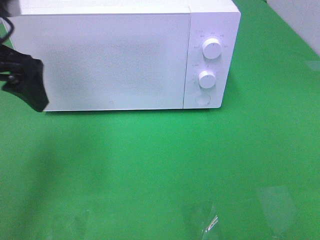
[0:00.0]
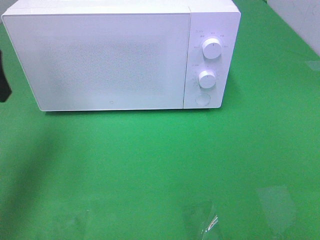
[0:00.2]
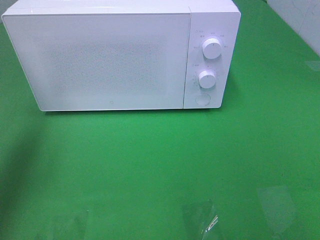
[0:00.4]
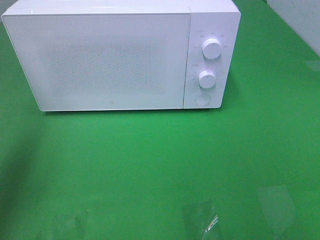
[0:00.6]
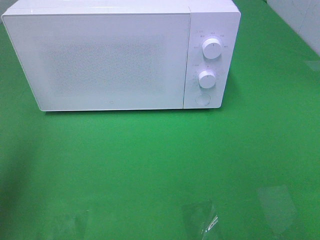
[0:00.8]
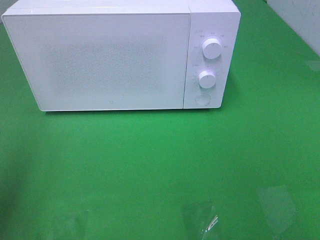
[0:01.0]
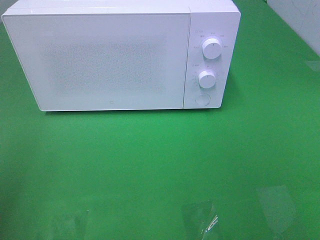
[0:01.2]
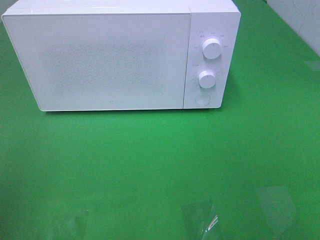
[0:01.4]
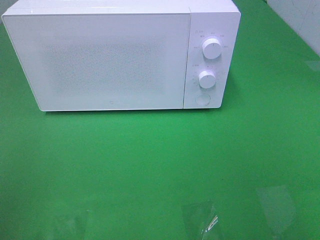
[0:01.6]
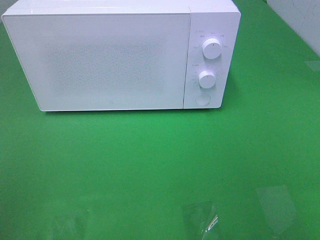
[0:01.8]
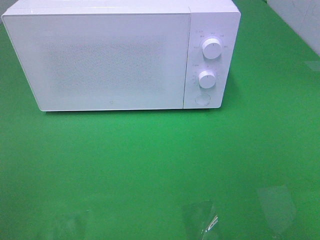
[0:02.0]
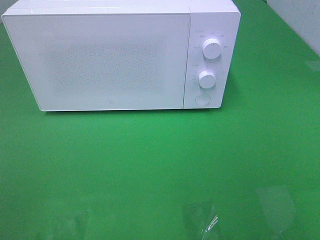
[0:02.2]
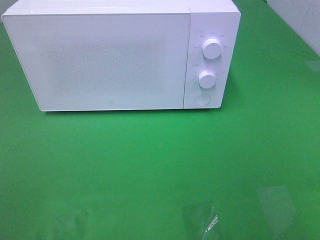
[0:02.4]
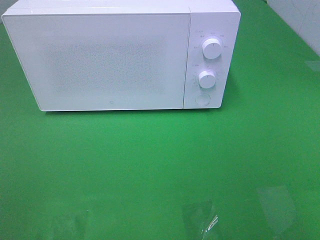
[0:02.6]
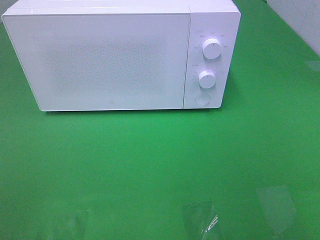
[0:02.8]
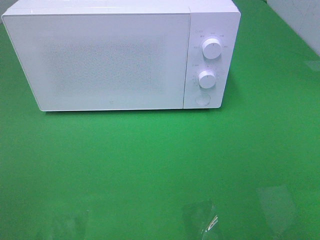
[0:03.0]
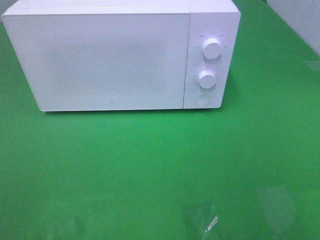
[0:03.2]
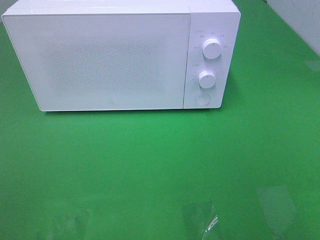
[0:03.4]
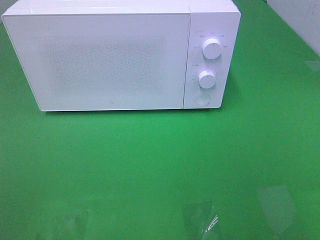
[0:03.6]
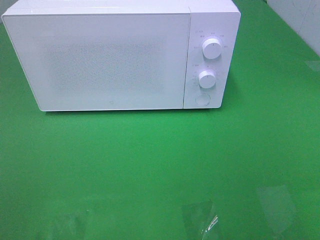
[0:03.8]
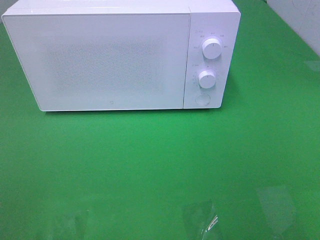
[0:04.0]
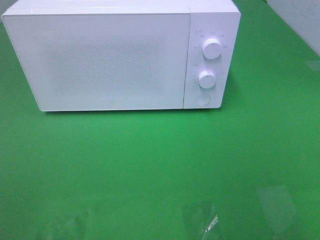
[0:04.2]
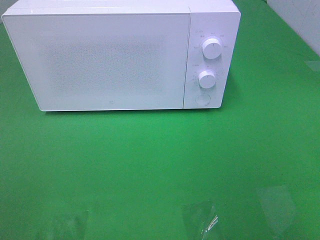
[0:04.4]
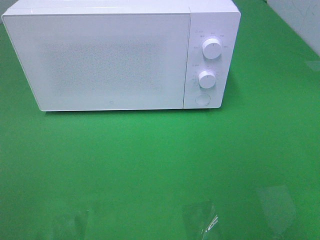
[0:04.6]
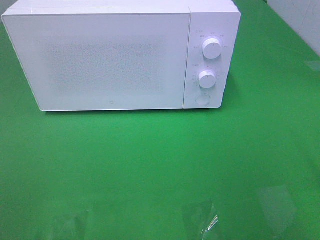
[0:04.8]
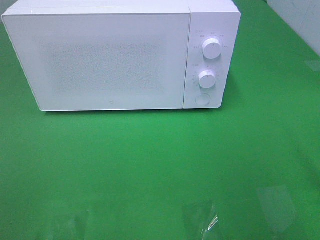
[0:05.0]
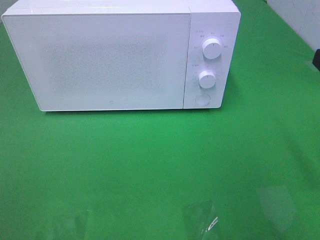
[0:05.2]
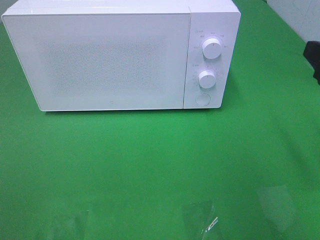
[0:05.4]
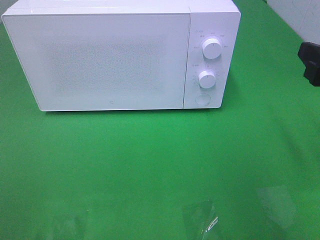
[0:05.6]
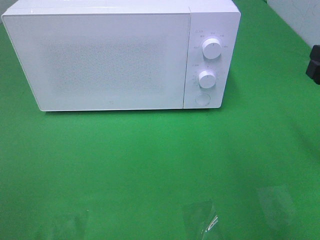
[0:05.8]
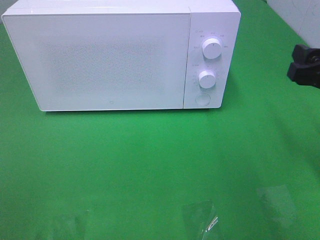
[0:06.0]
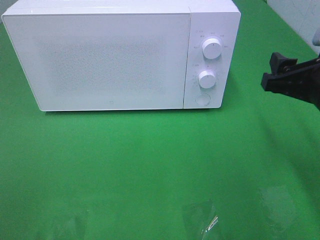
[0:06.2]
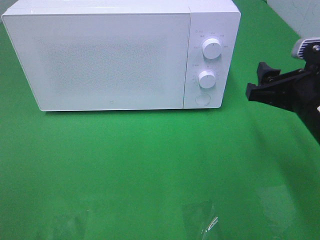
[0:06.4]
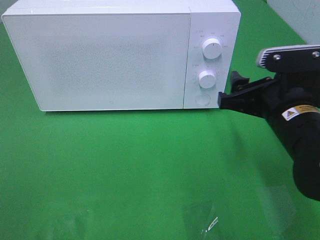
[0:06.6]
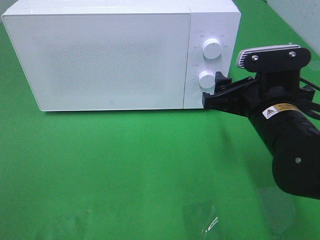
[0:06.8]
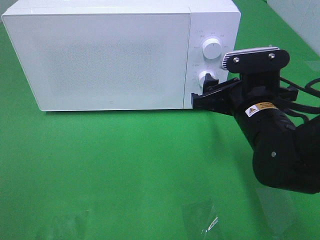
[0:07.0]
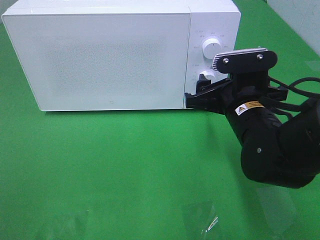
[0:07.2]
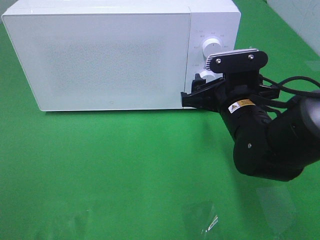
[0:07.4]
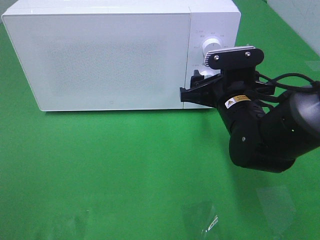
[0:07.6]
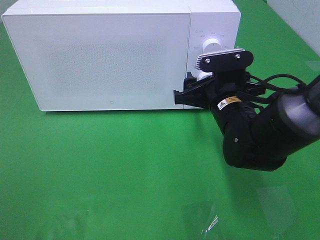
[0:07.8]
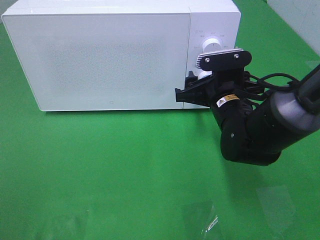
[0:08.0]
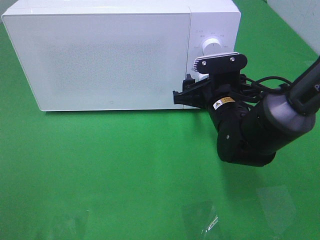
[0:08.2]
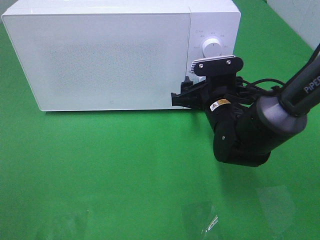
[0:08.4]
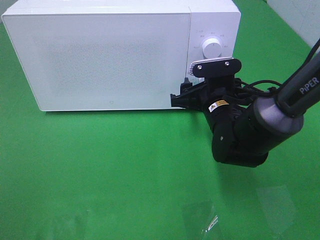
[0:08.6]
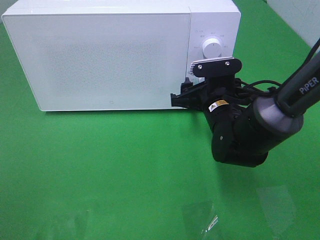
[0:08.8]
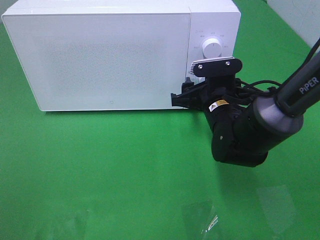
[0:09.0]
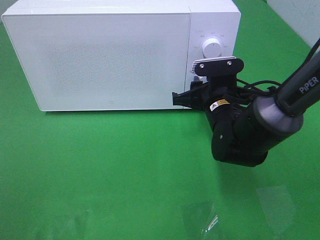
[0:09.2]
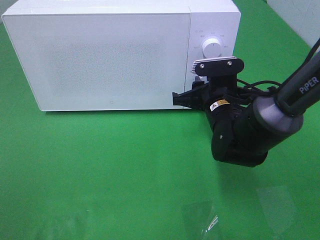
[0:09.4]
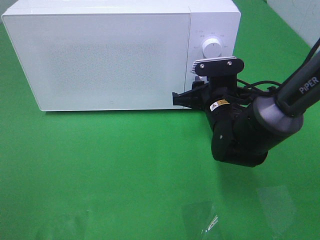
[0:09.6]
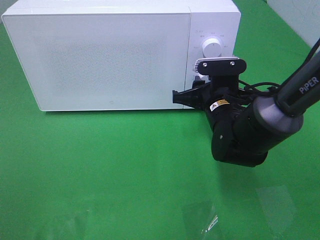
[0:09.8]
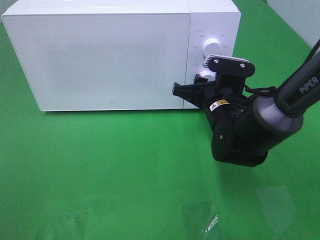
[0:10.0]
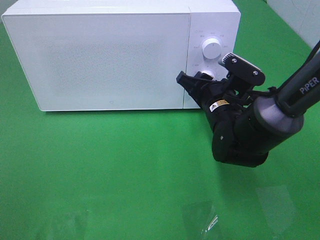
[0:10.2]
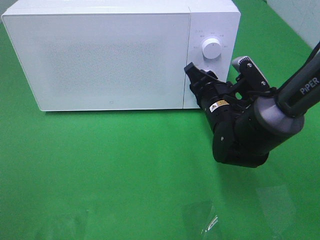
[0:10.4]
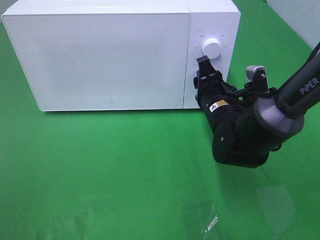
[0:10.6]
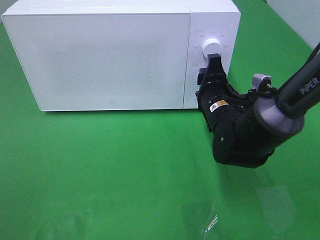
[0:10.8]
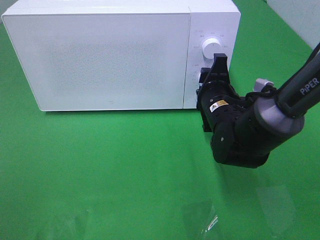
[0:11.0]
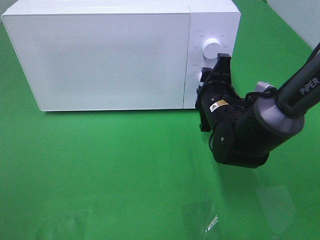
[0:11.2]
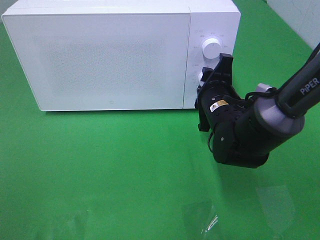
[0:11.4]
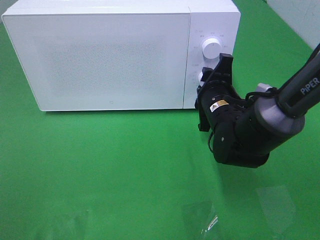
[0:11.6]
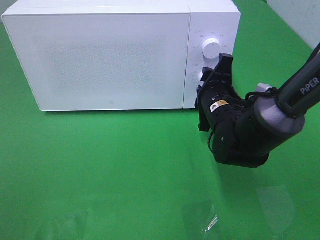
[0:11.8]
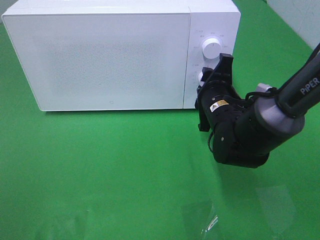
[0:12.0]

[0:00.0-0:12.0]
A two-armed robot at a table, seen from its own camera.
Task of the whole recording: Heat the burger.
Step, 0:00.0 to 0:09.2: Right hand: twist timer button.
0:00.0 to 0:01.6: The left gripper travels backward and to the left by about 25 cm.
0:04.4 to 0:06.0: The right gripper travels forward and downward by approximately 20 cm.
0:06.0 to 0:07.6: The right gripper shifts approximately 15 cm to the left, downward and forward.
0:07.6 to 0:09.0: The grippers make only small movements.

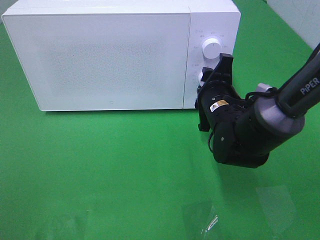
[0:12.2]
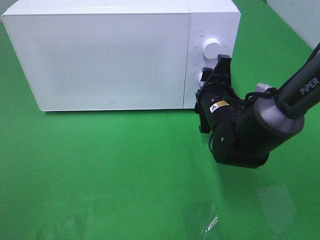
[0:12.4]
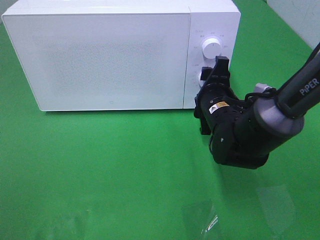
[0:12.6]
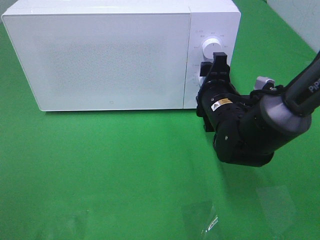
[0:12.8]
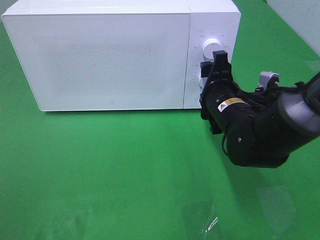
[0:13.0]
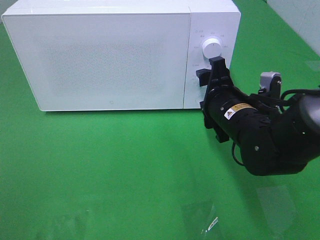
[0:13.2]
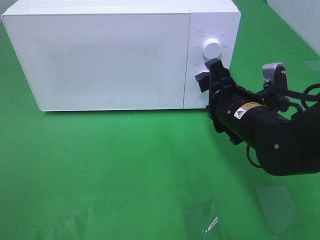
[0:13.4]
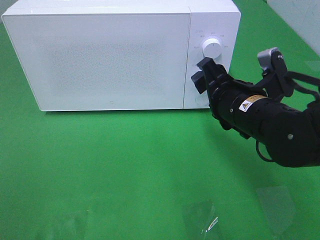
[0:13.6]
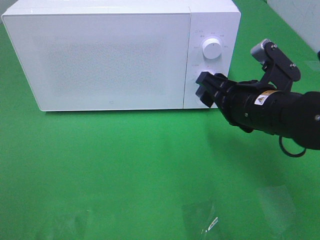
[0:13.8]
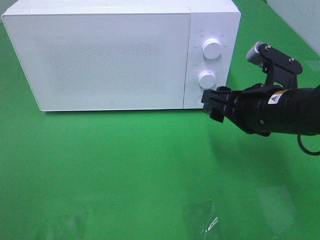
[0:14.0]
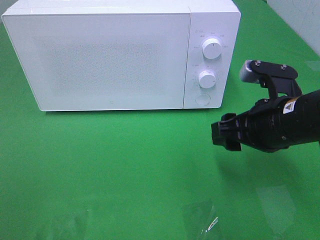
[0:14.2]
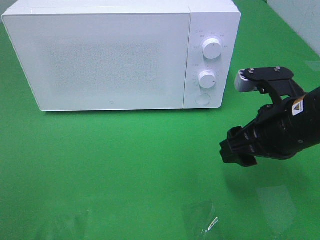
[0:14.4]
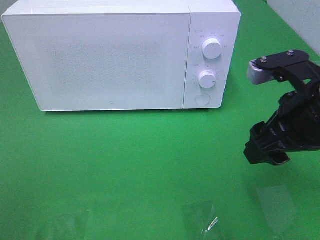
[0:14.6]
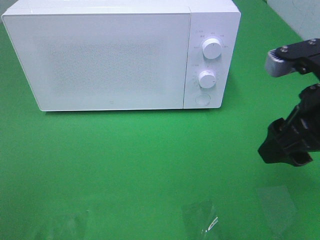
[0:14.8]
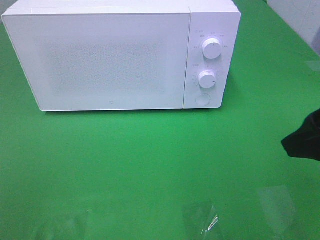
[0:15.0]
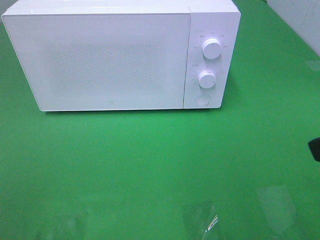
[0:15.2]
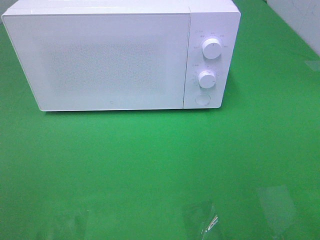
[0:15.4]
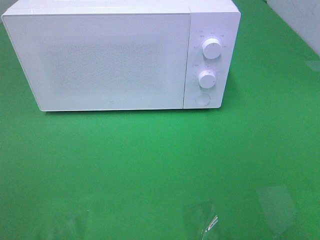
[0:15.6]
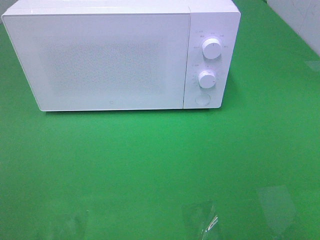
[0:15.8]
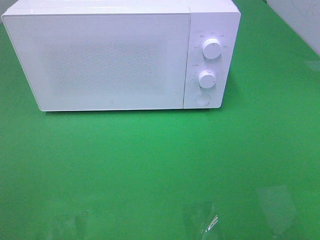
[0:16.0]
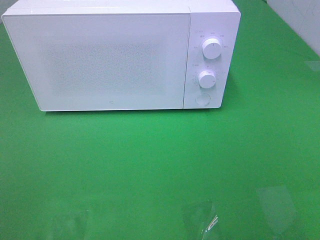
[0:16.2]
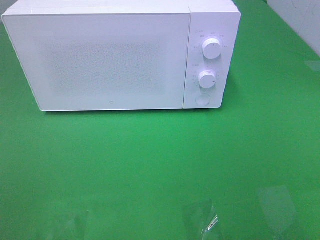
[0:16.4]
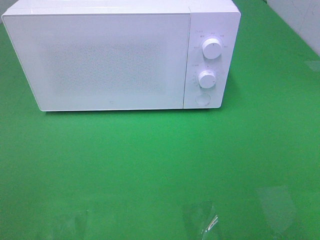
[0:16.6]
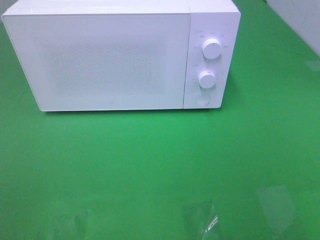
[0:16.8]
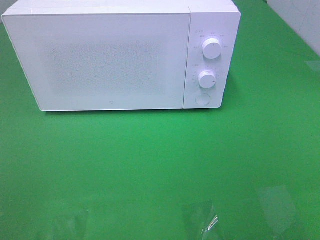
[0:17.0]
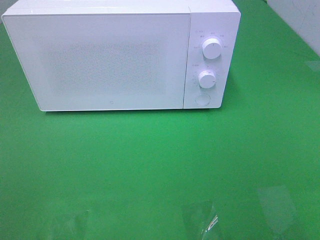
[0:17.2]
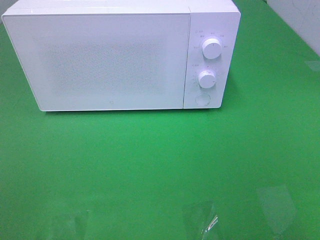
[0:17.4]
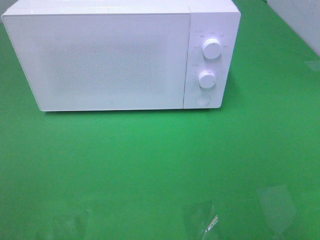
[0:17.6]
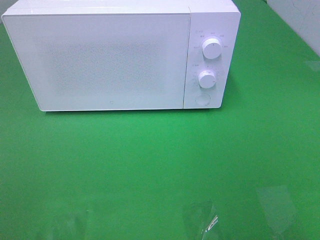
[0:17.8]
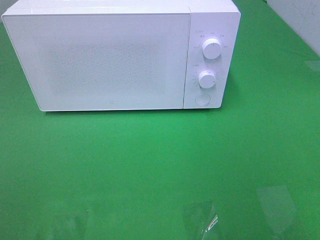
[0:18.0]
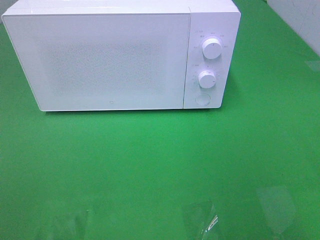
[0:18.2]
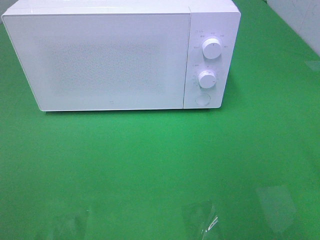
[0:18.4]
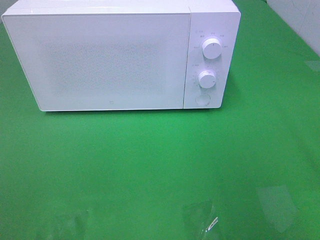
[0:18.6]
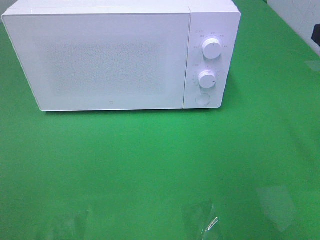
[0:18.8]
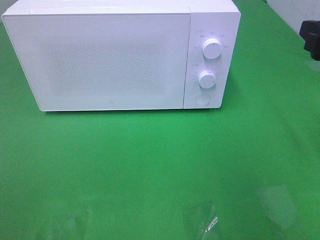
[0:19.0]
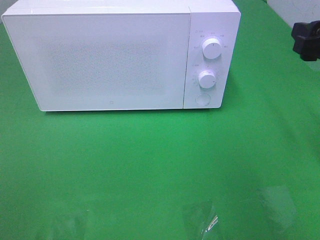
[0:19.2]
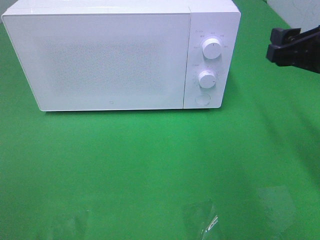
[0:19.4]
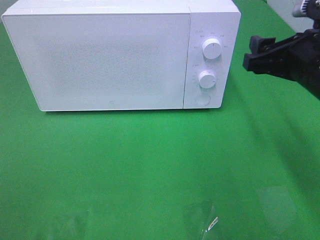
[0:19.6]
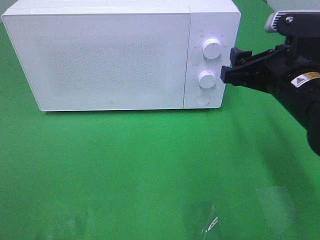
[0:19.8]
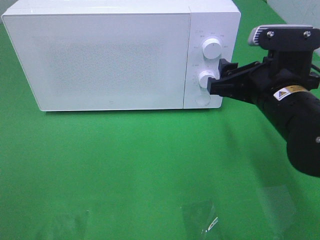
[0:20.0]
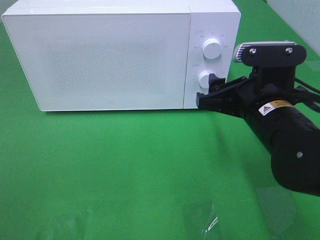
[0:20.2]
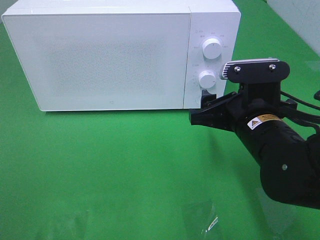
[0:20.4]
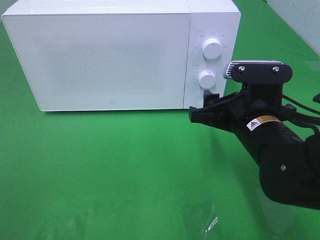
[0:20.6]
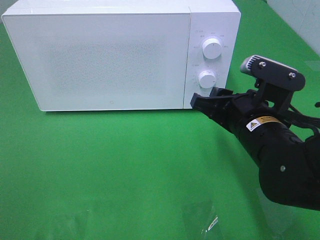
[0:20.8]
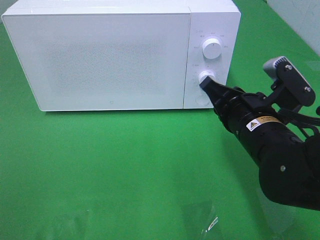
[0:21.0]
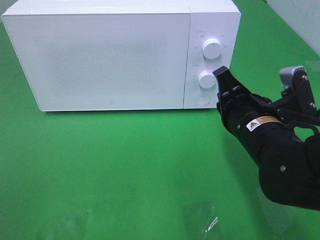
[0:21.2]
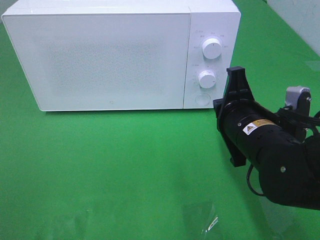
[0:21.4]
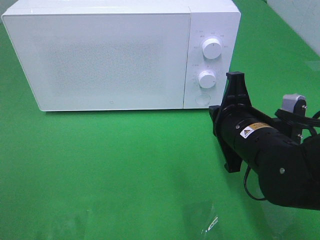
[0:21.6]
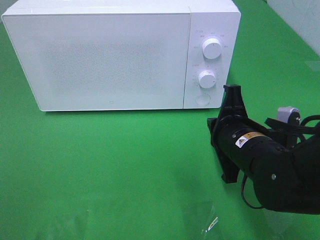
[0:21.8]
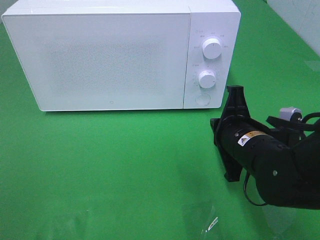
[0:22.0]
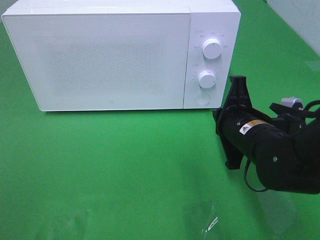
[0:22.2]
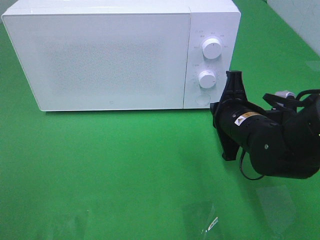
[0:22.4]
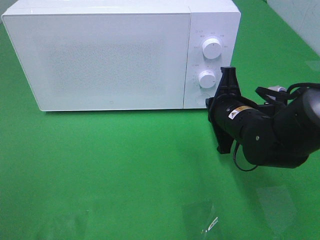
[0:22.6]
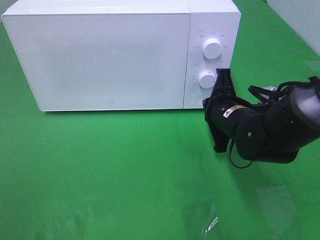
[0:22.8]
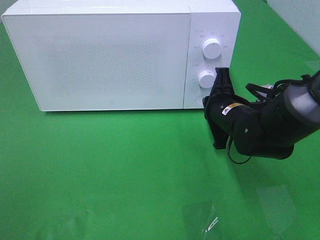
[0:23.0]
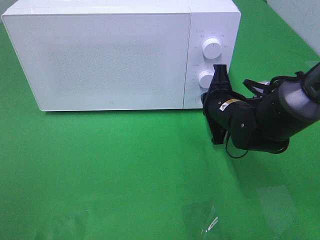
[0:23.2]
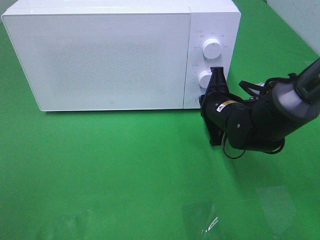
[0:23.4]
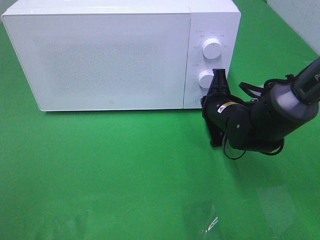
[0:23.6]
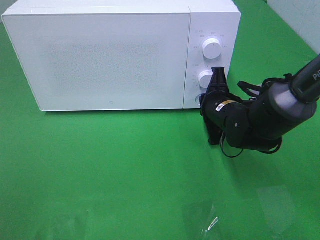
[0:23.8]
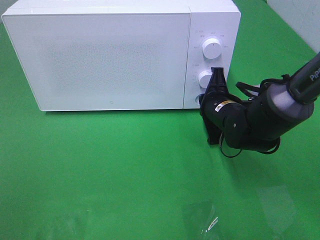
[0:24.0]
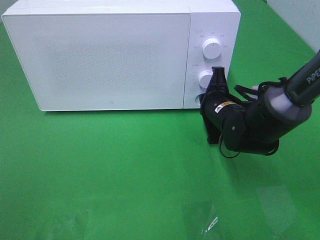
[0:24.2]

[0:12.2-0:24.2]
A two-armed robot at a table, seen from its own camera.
Task of the whole recording: Heat the burger.
Step, 0:12.2 to 0:23.6: Right hand: press the switch.
0:12.2 to 0:13.8: The right gripper moves backward and upward, approximately 10 cm.
0:13.8 to 0:15.2: The right gripper goes approximately 20 cm backward, upward and to the right.
0:18.2 to 0:19.8: The right gripper shifts roughly 20 cm forward, downward and to the left.
0:19.8 to 0:21.2: The right gripper shifts some 5 cm downward, and closes up.
0:21.2 to 0:22.6: The right gripper shifts some 5 cm forward.
0:22.6 to 0:24.2: The right gripper shifts by about 5 cm.
